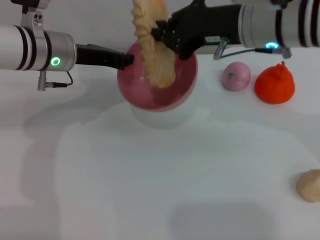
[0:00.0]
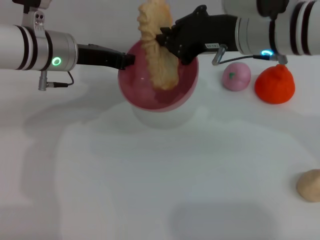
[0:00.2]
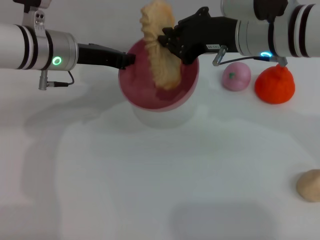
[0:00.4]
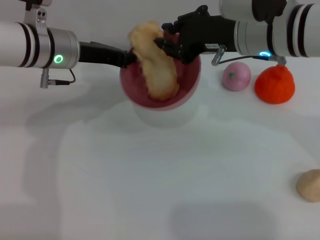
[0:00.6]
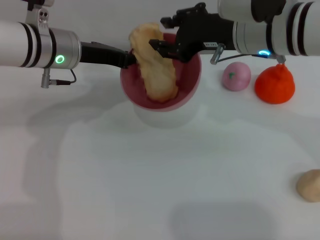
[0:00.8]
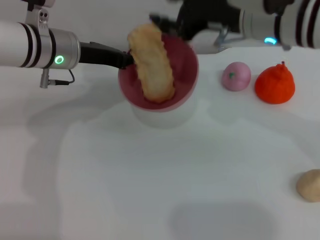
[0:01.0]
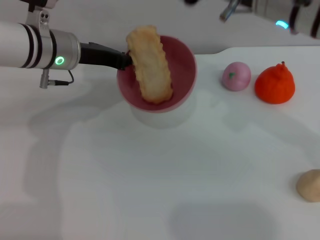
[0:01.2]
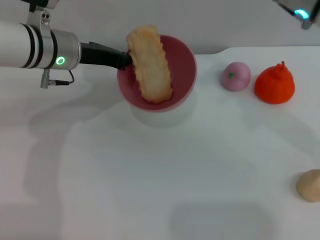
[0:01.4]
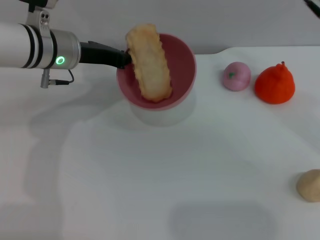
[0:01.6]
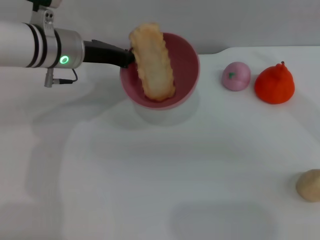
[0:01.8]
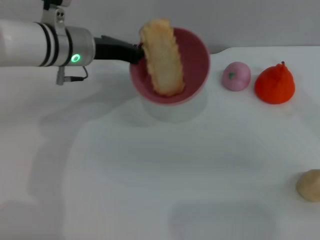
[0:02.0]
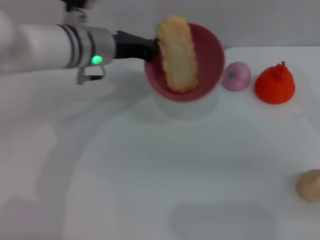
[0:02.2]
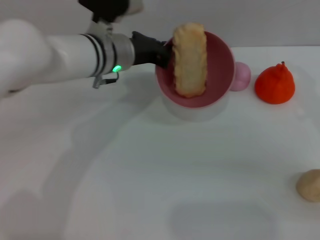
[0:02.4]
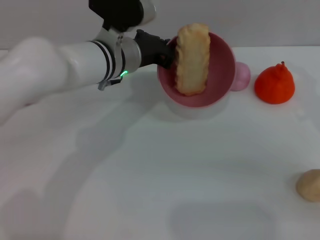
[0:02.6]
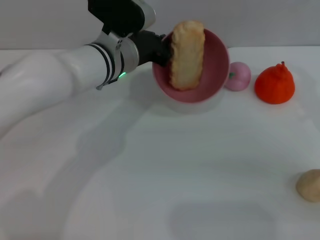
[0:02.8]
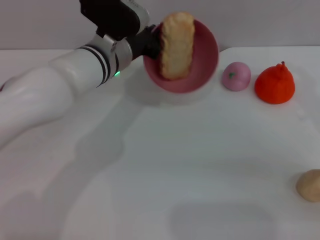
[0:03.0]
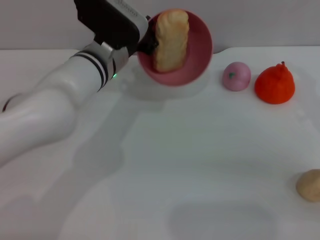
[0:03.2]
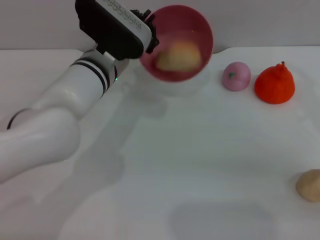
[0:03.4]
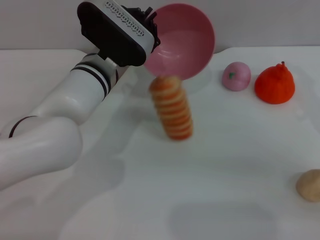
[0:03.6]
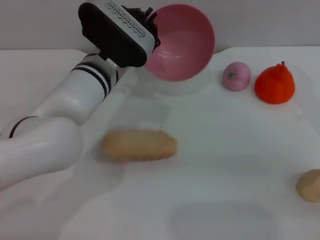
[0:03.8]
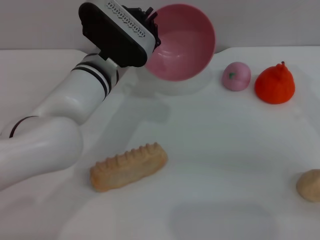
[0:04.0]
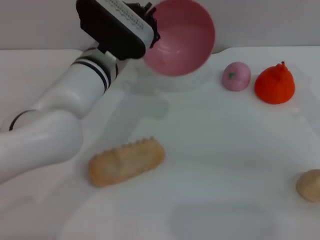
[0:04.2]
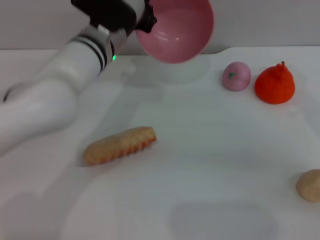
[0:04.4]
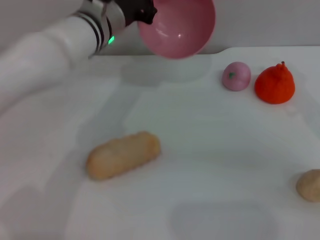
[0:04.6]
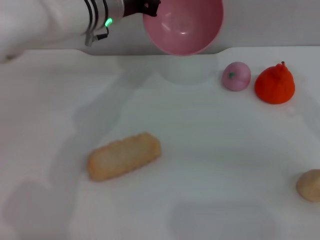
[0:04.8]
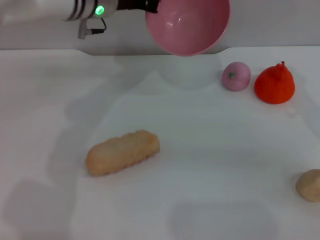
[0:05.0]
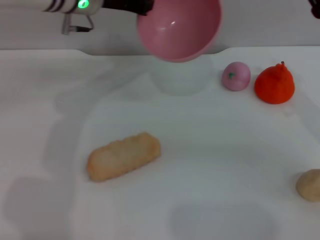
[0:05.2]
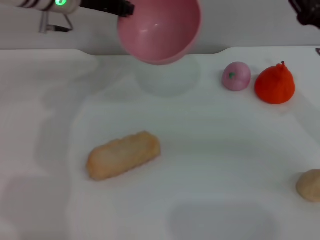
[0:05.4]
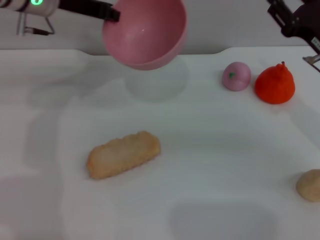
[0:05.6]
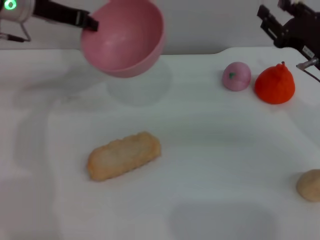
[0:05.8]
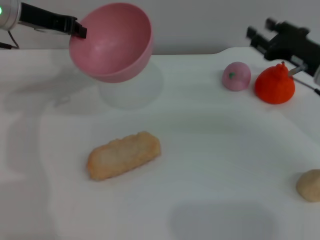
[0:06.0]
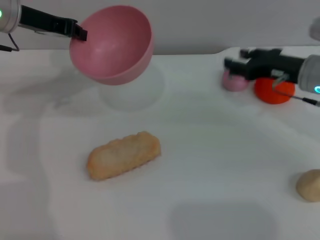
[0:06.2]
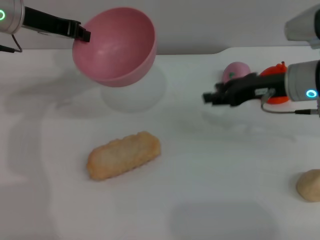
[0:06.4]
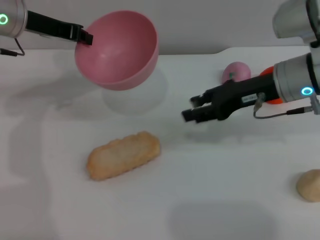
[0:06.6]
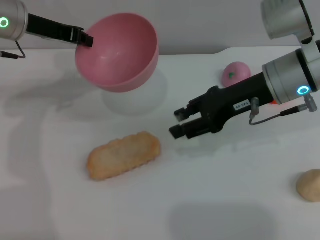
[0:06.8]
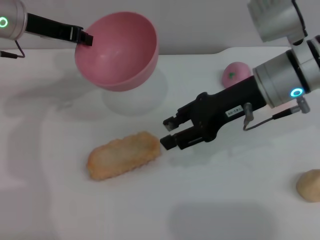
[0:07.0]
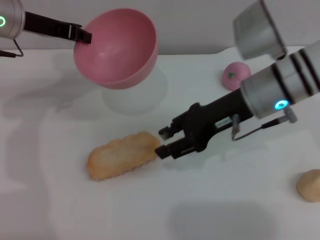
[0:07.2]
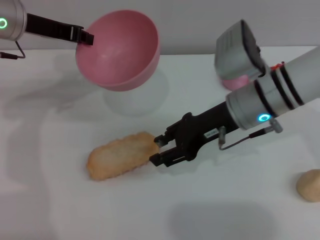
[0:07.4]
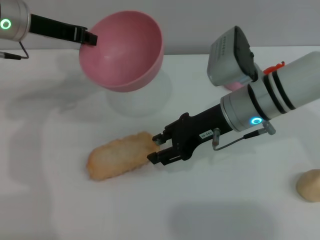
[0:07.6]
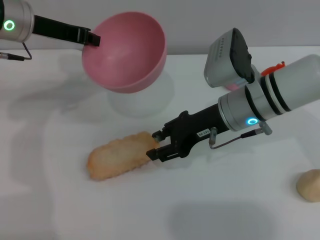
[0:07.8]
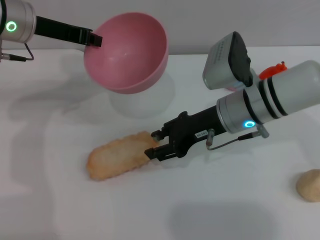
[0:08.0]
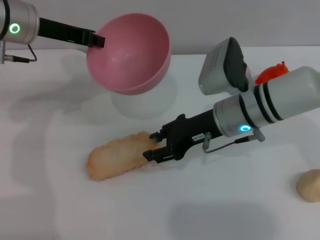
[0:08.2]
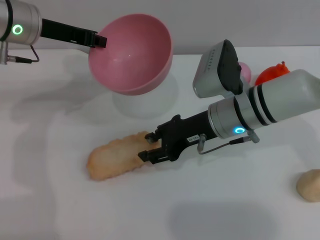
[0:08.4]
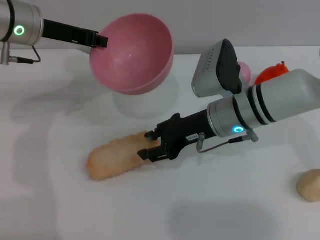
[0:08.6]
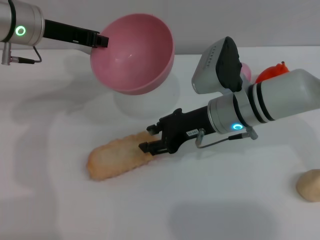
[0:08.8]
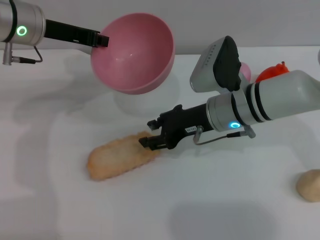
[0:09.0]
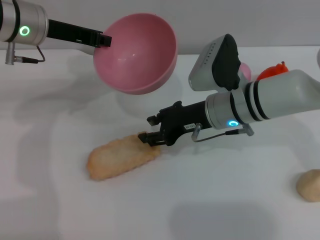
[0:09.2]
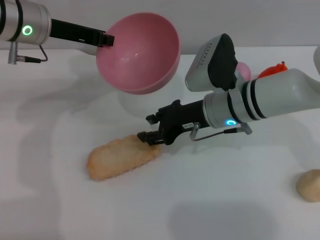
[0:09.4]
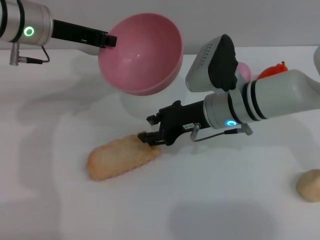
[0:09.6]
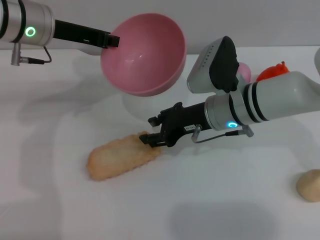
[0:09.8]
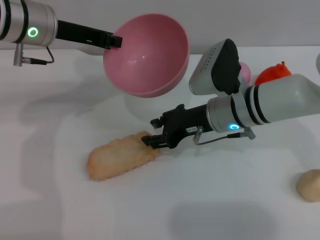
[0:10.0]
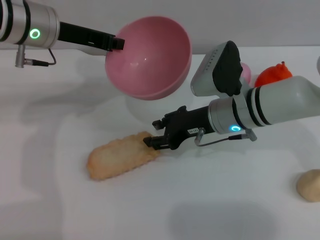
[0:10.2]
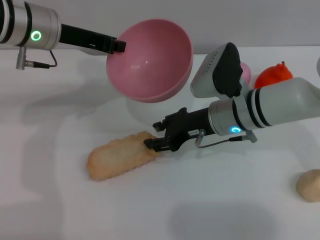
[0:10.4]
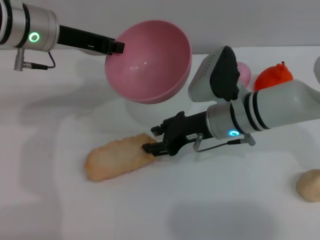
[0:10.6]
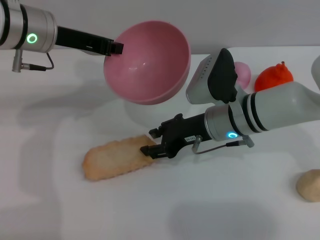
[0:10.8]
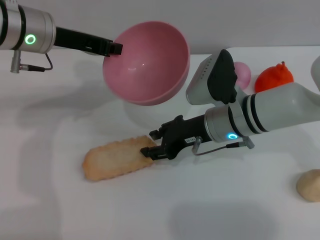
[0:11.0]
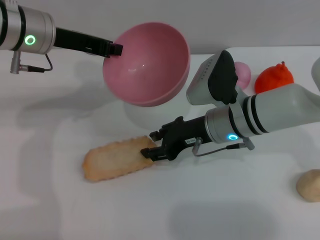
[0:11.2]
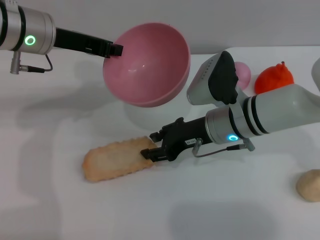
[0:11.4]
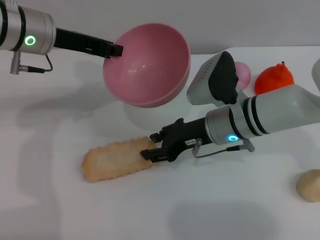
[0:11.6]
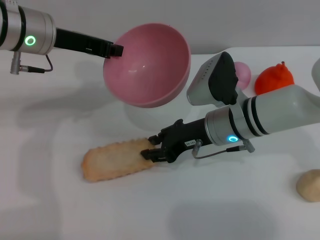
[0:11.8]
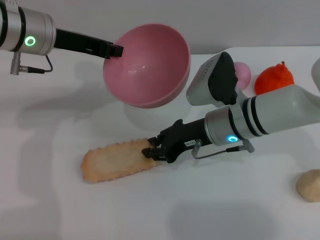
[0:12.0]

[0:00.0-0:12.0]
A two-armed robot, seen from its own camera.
Task of the whole recording: put the bread into the pink bowl and pour it out repeatedly.
Step, 0:01.0 to 0:03.8: Pour the bread out of the bowl.
0:00.0 to 0:01.6: The right gripper is displaced to the right by approximately 5 cm, and opens up.
0:01.6 to 0:03.0: The left gripper is displaced to the right by some 10 cm; the right gripper is displaced to the right and downward by approximately 10 cm.
0:03.0 to 0:04.4: The grippers make only small movements.
0:04.4 to 0:06.0: The left gripper moves to the left and upward, about 15 cm; the right gripper moves downward and forward, roughly 10 cm.
0:06.0 to 0:07.6: The right gripper heads to the left, covering some 15 cm.
0:07.6 to 0:10.4: The grippers stay close to where they were, moving slightly.
0:10.4 to 0:12.0: Neither gripper changes place.

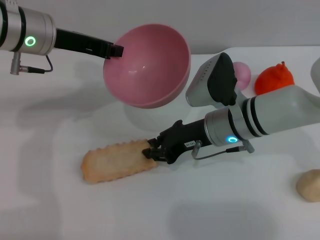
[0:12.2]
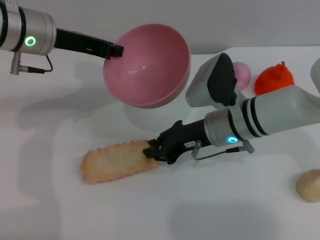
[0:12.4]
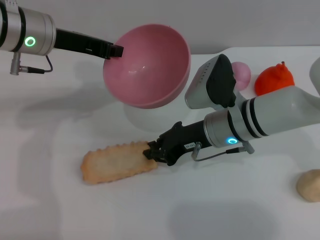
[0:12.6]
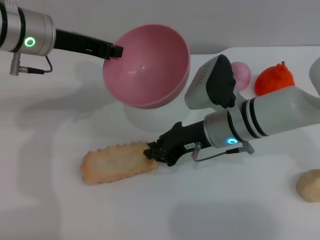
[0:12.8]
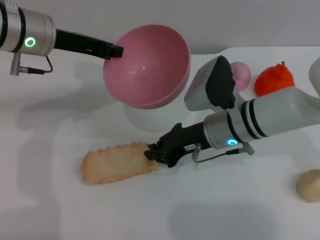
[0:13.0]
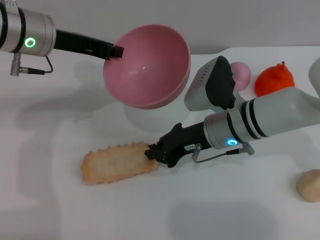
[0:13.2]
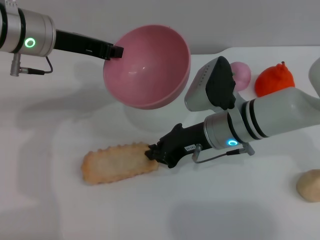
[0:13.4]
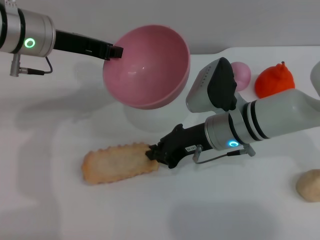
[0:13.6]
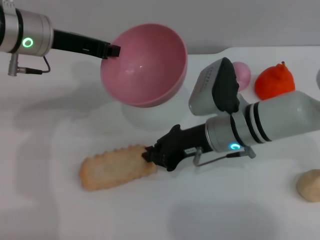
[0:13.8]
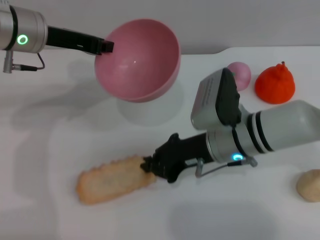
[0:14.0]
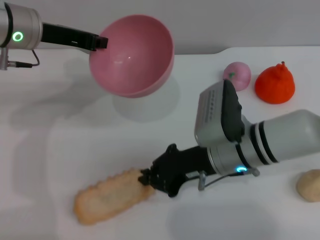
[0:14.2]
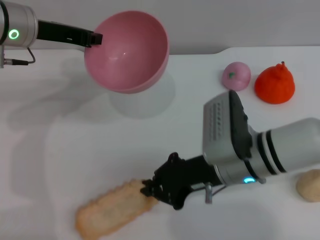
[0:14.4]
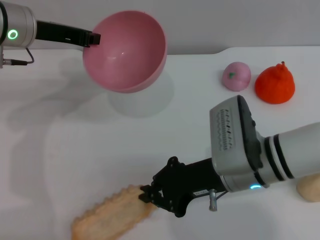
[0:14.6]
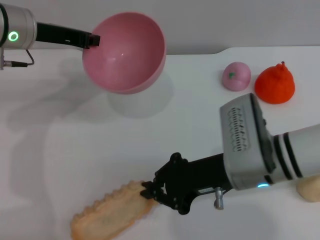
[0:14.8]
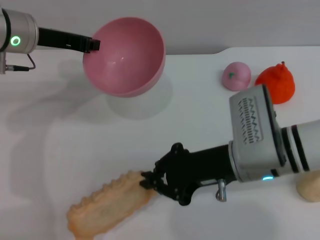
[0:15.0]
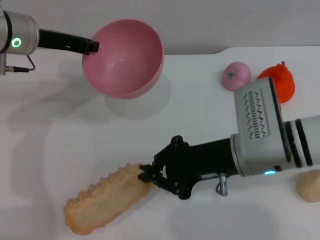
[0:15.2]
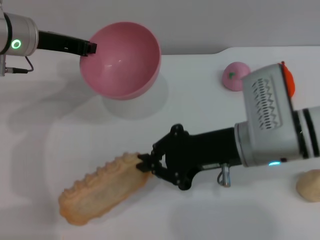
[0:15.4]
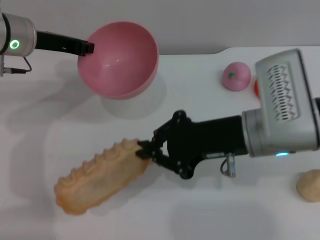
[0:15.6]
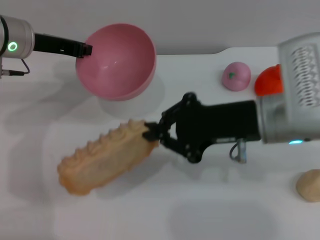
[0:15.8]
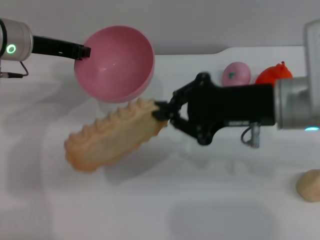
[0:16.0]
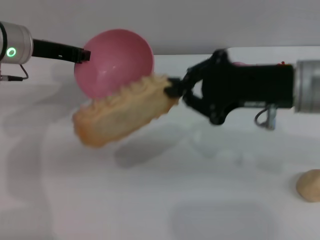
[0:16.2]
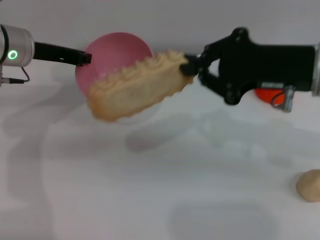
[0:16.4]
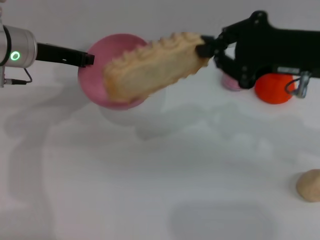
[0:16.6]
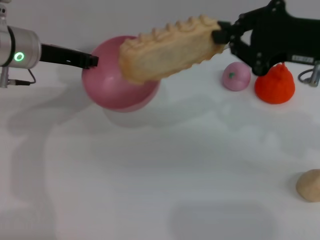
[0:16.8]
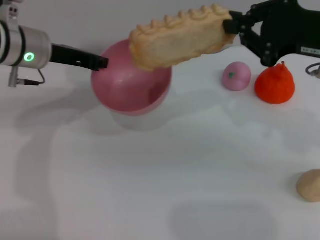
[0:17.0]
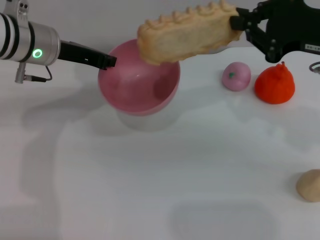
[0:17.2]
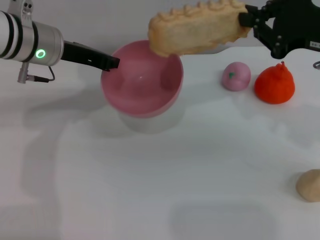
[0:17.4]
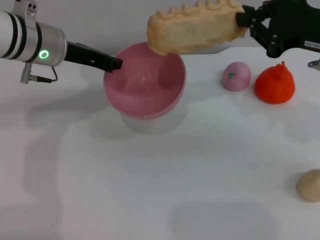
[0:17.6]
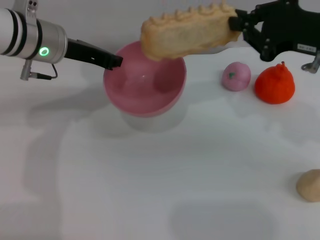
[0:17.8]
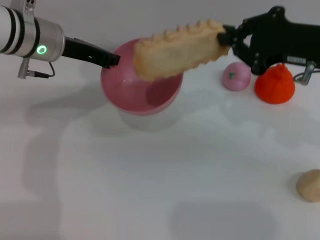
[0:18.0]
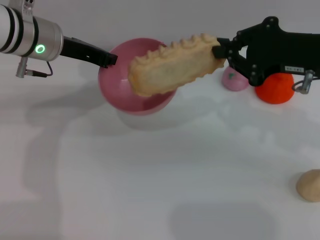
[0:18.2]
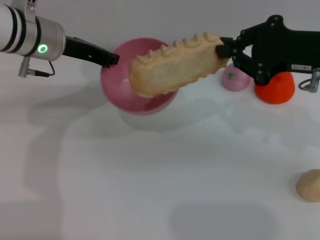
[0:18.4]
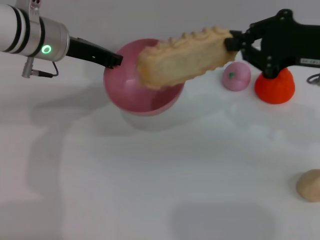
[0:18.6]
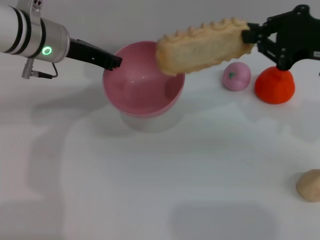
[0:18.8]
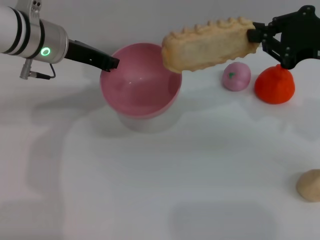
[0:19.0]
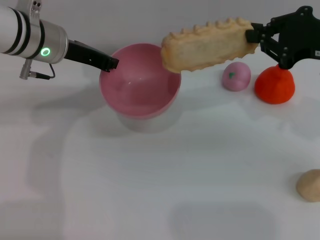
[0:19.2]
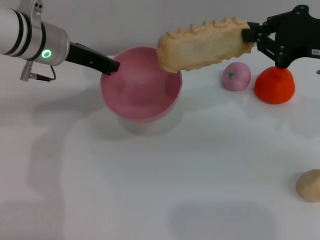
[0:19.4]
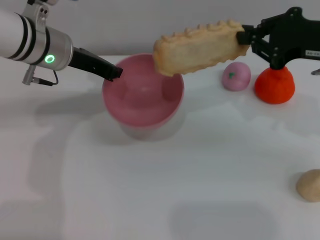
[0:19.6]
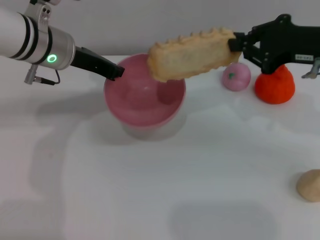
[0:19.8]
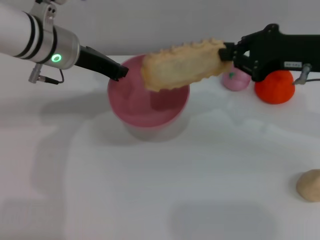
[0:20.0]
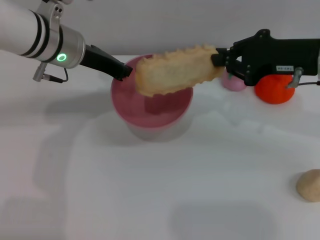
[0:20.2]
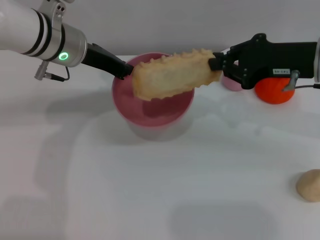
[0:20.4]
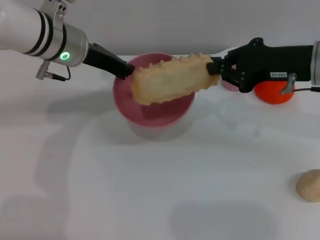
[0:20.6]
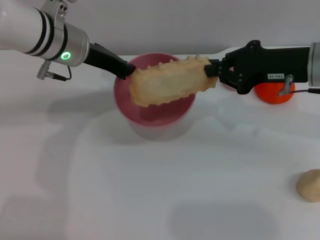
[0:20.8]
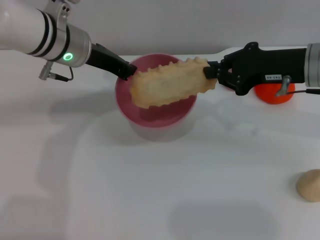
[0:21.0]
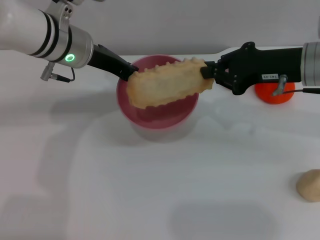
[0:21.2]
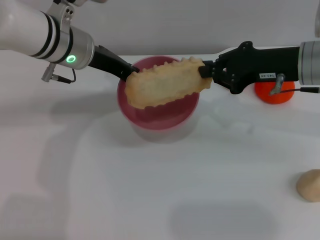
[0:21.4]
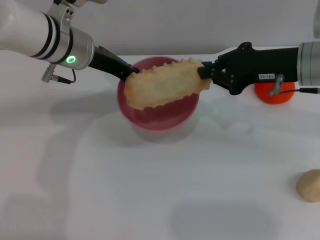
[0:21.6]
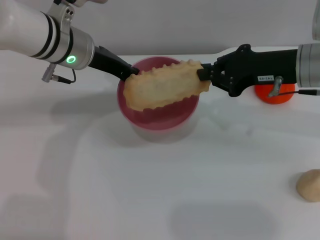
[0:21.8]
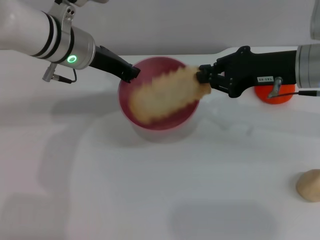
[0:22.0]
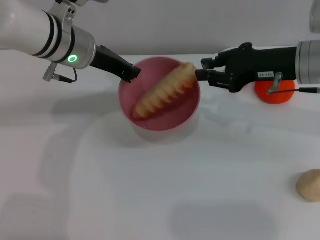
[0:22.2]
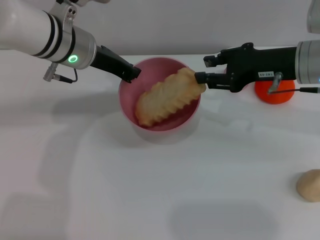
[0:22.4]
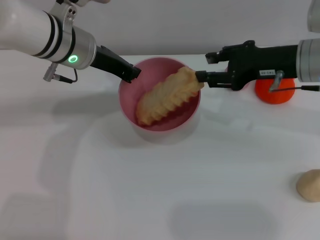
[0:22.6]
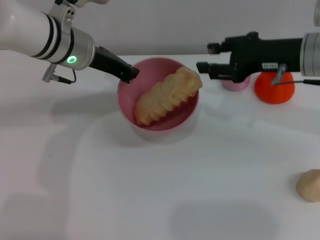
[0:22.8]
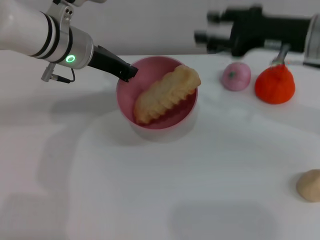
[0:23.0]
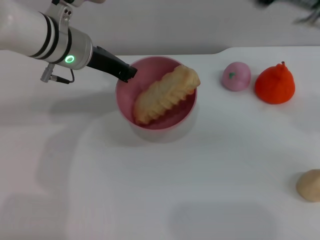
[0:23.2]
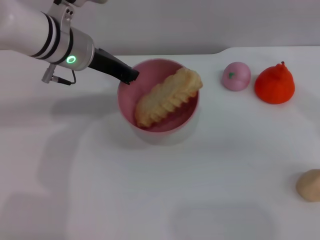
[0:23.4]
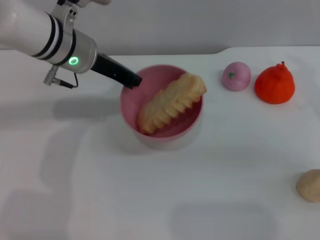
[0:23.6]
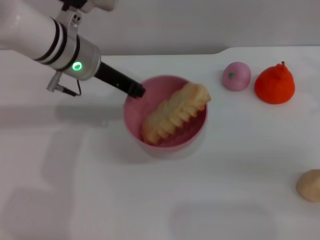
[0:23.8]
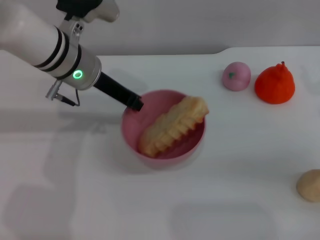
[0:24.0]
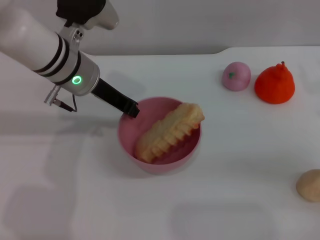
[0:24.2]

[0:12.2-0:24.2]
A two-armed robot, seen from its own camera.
Task of the whole recording: put the bread into the pink bowl and pour it out repeatedly.
Step, 0:12.2 to 0:15.2: Pick up the bread with the right gripper.
Step, 0:15.4 to 0:22.2: Place the bread into the bowl.
0:12.2 to 0:13.8: Both grippers stay put.
0:13.8 to 0:15.2: The right gripper goes some 5 cm backward.
0:15.2 to 0:16.6: The right gripper shifts some 15 cm upward and to the right.
0:16.6 to 0:18.2: There are only small adjustments of the grippers.
0:18.2 to 0:21.2: The grippers make only small movements.
0:21.2 to 0:22.6: The right gripper opens up.
0:22.6 to 0:24.2: The right gripper heads to the right and backward, covering about 10 cm.
